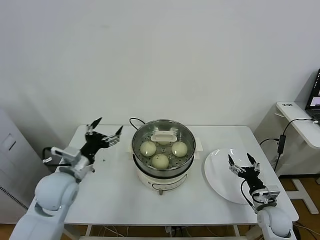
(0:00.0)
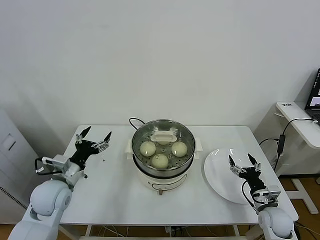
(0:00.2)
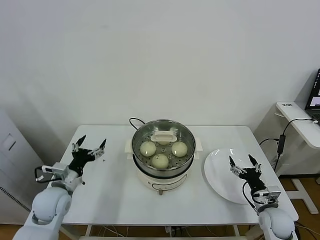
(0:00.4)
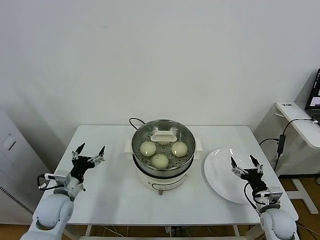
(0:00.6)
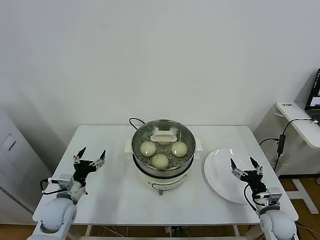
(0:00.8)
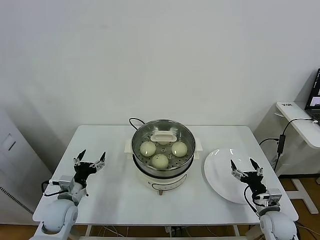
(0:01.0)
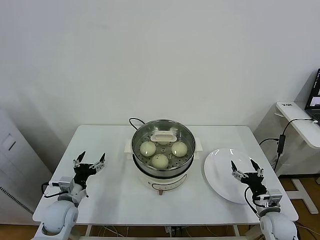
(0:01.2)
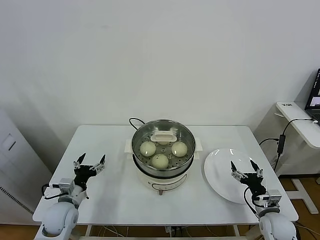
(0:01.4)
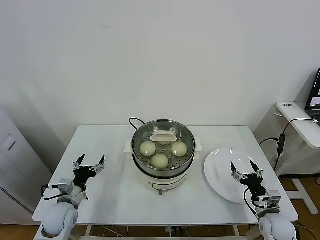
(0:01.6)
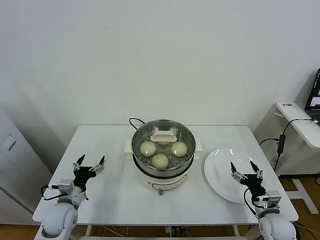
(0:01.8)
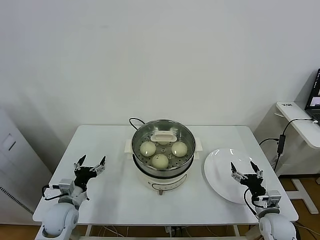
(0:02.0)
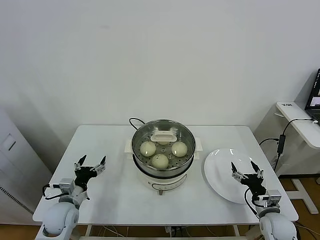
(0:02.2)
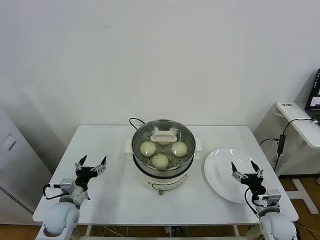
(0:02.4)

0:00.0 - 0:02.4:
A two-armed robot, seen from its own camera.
Task of the whole recording: take steamed baozi put them in steamer.
0:00.0 - 0:01.2: The left gripper shifts roughly 15 cm downward and to the left.
0:01.2 - 0:02.4: Both grippers stay about where they are.

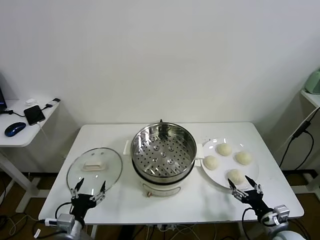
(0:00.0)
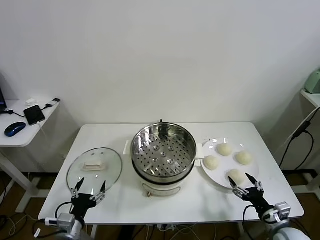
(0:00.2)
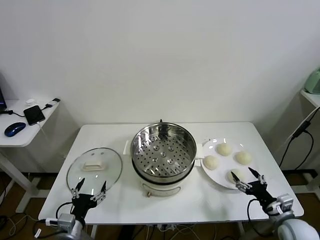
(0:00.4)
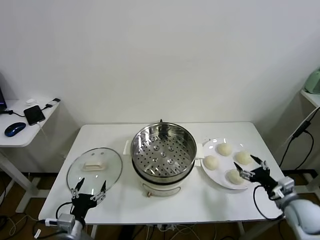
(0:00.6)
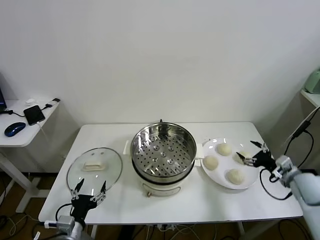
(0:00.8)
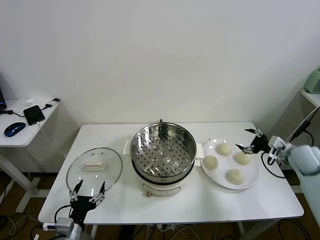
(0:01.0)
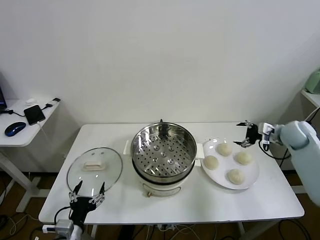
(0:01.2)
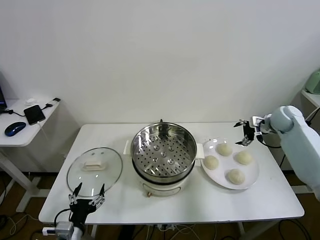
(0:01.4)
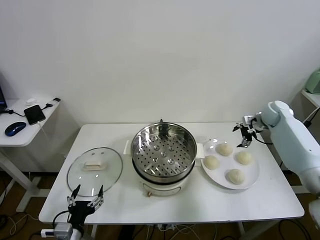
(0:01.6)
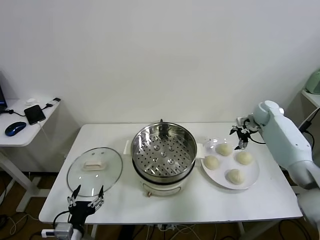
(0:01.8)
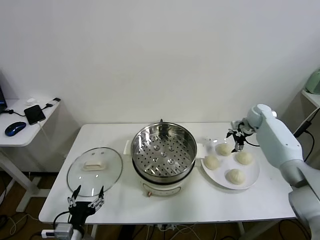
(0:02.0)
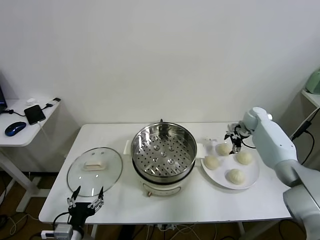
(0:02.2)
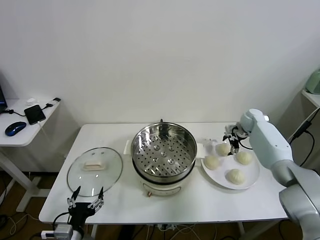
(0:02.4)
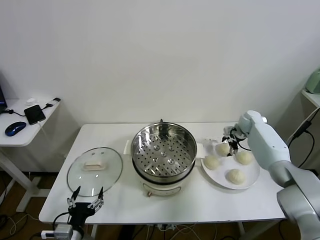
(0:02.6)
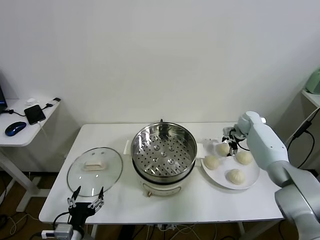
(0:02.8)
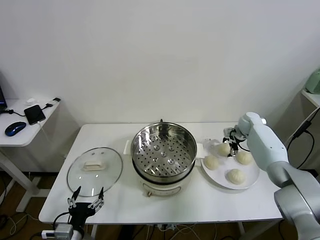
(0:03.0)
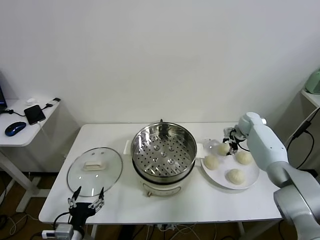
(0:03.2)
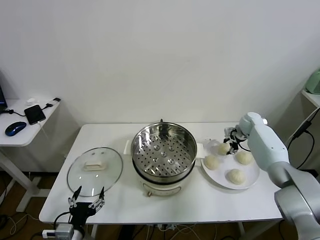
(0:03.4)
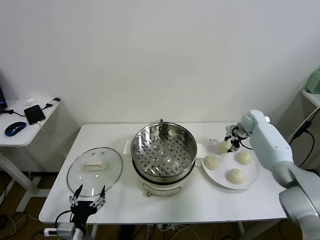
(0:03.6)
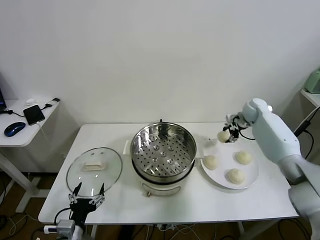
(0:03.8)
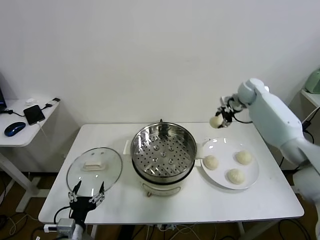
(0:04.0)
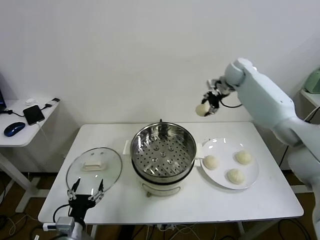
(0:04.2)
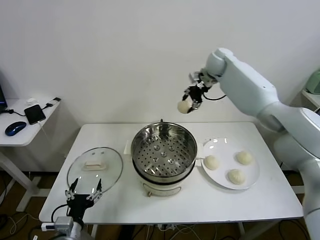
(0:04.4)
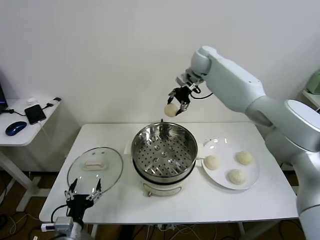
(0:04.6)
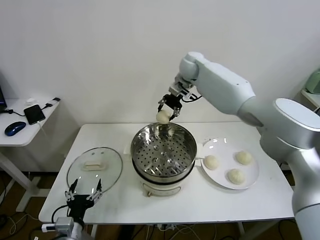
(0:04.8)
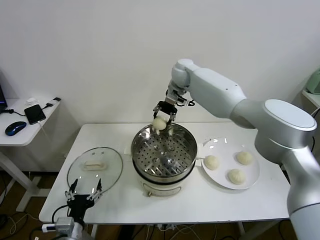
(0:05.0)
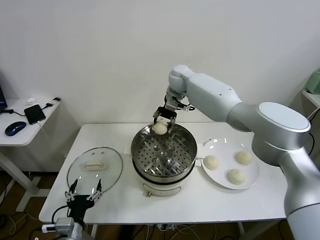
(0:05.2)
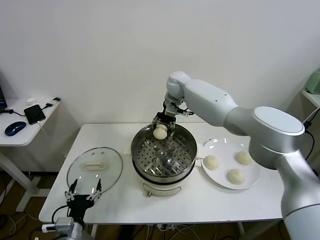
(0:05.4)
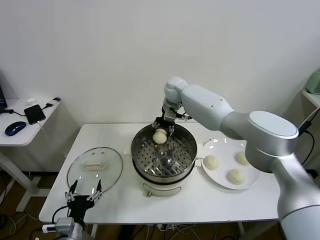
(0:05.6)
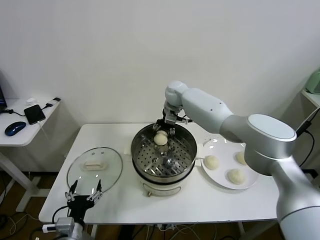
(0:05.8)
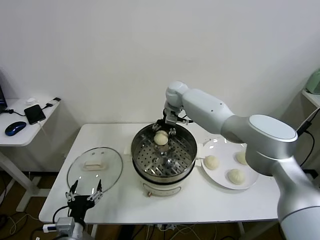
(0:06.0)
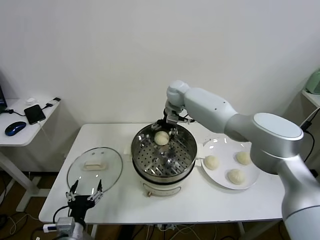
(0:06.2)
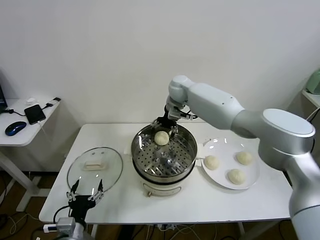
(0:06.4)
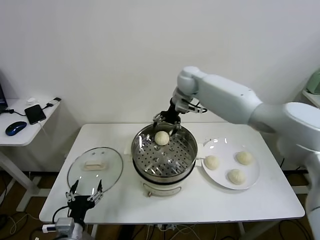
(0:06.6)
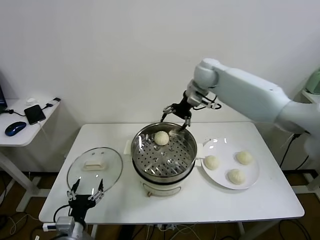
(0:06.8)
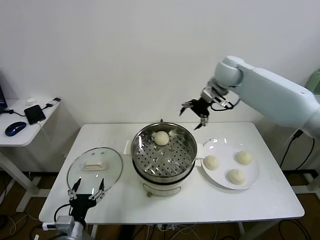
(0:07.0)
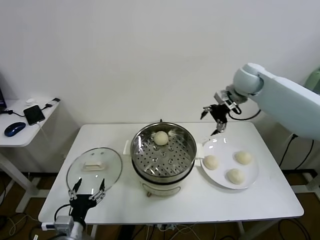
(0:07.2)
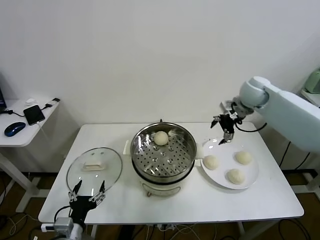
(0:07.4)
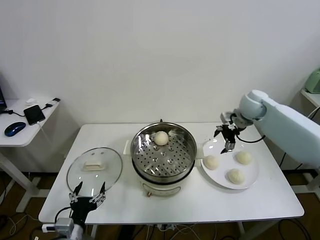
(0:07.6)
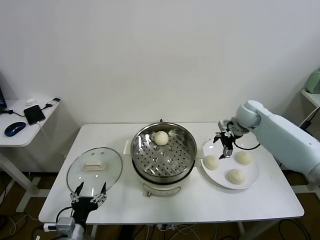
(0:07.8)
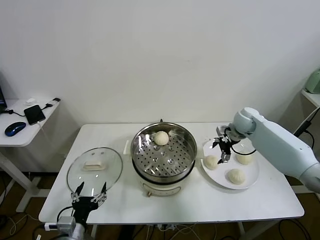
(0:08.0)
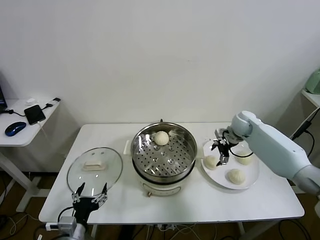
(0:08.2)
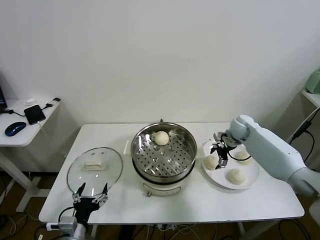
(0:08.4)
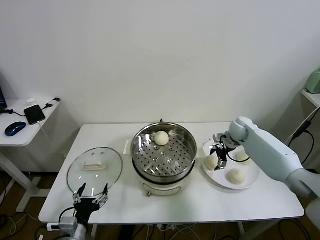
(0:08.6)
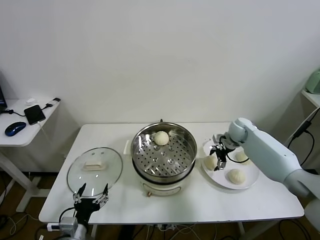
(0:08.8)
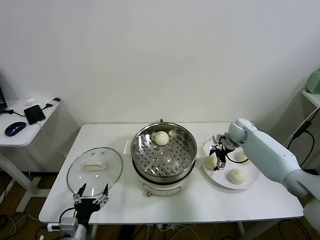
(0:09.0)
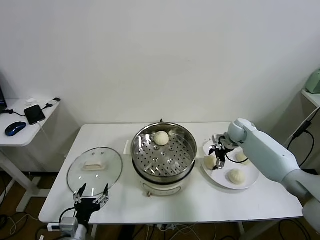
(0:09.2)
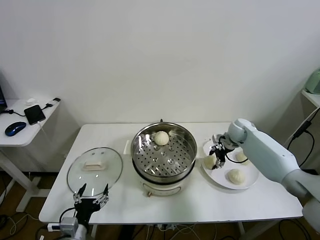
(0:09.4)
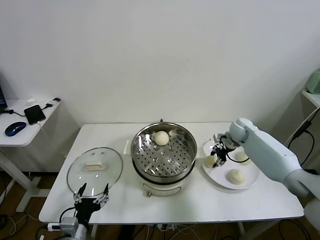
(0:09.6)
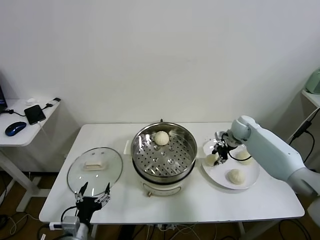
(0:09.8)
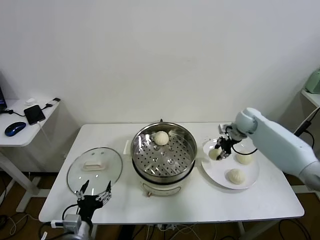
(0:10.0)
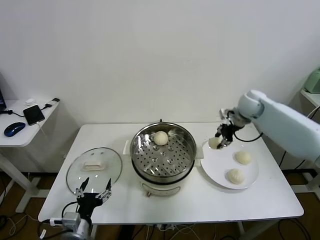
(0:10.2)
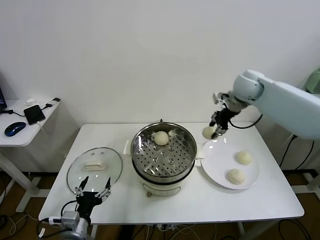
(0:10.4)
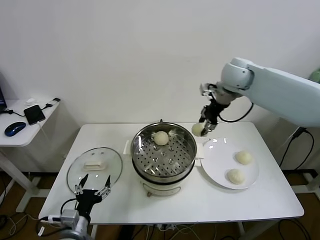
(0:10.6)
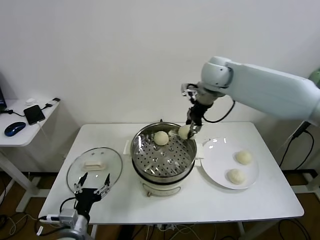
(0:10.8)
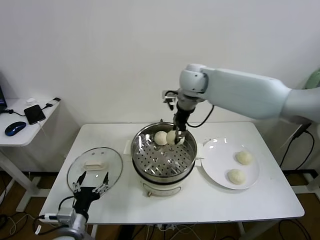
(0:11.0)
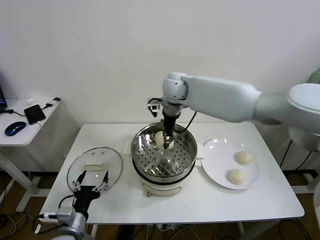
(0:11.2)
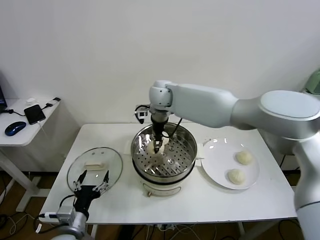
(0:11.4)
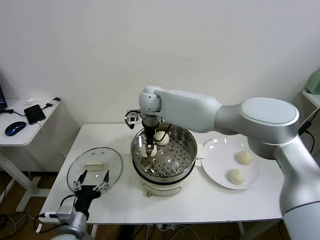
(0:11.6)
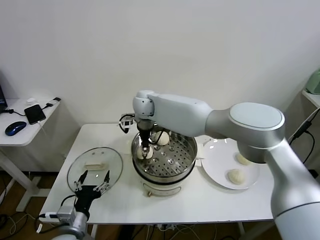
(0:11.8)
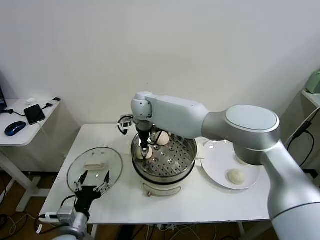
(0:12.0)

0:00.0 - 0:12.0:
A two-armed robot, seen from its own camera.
Task of the whole recording: take steamed baozi put them in steamer.
Step, 0:00.0 - 0:03.0: Grasp the baozi in the plate with right gripper.
Step, 0:03.2 - 0:06.2: Place the baozi on the steamer with right gripper.
Step, 0:06.4 - 0:09.4: Grasp the baozi in the plate with right gripper.
0:01.6 - 0:03.0: The right gripper moves downward, approximately 10 cm.
0:03.0 - 0:04.4: The right gripper shifts about 35 cm upward and to the left, and closes up.
0:04.4 - 0:06.0: The right gripper moves downward and to the left, approximately 15 cm, and opens its fingers.
0:06.0 - 0:07.6: The right gripper moves to the right, roughly 25 cm.
0:07.6 - 0:09.0: The right gripper goes approximately 15 cm downward.
0:09.0 - 0:10.4: The right gripper heads upward, covering some 25 cm, and closes up.
0:10.4 - 0:12.0: The right gripper travels to the left by approximately 30 cm.

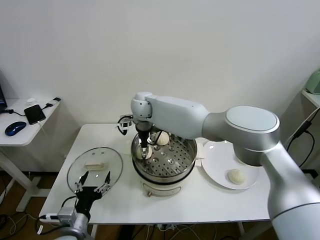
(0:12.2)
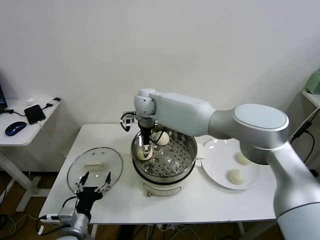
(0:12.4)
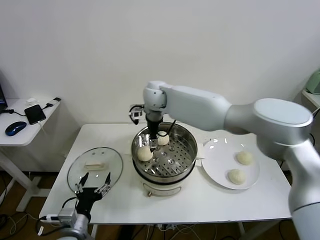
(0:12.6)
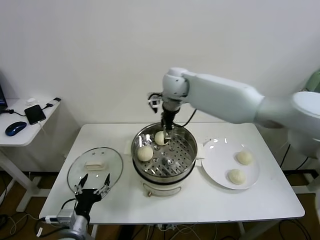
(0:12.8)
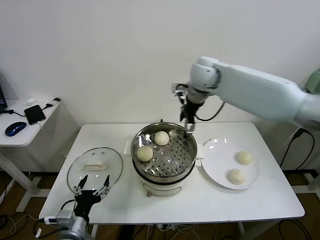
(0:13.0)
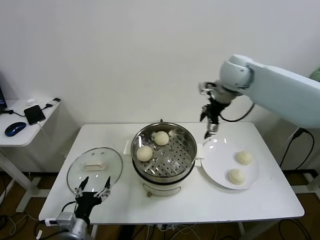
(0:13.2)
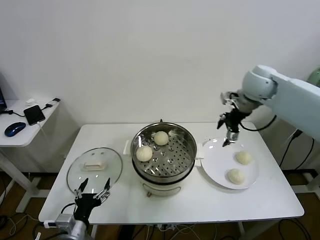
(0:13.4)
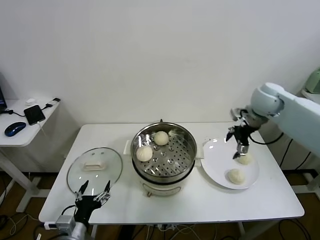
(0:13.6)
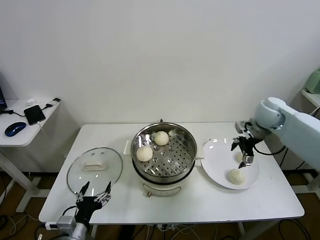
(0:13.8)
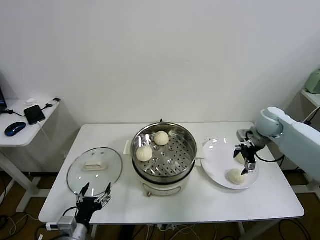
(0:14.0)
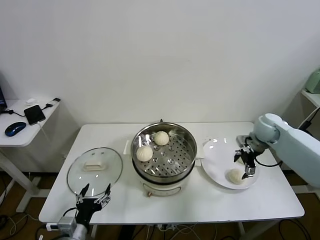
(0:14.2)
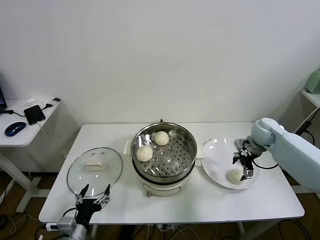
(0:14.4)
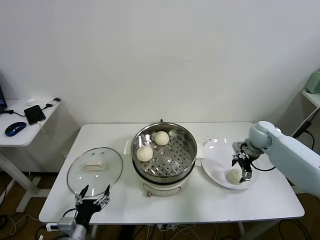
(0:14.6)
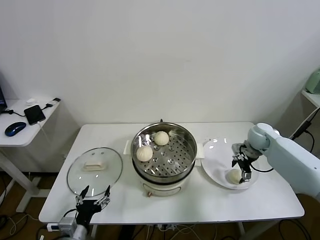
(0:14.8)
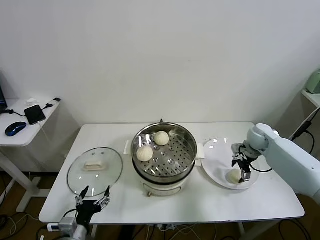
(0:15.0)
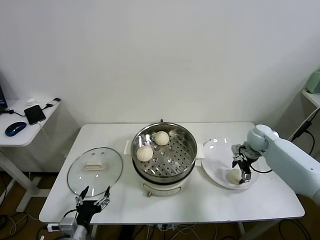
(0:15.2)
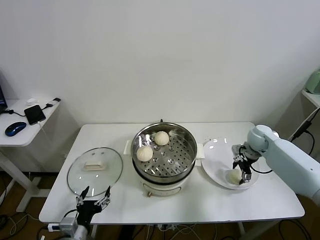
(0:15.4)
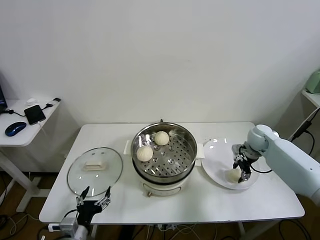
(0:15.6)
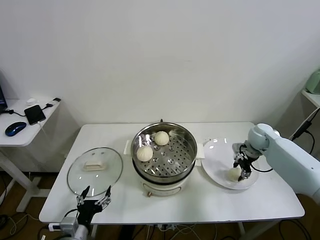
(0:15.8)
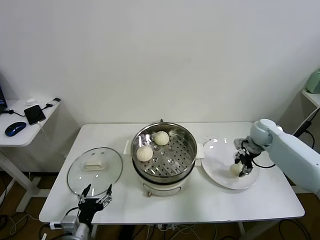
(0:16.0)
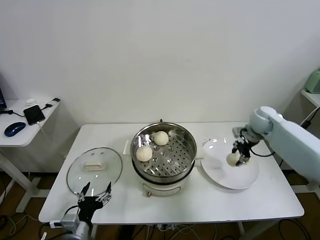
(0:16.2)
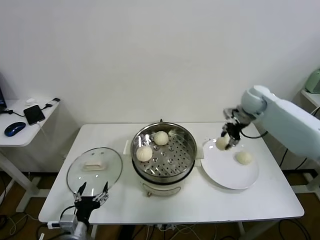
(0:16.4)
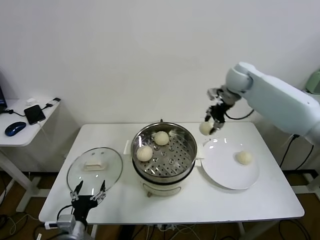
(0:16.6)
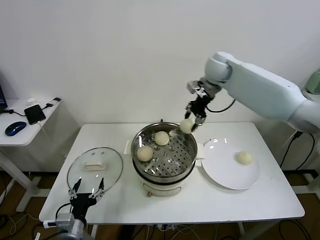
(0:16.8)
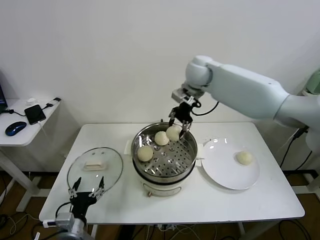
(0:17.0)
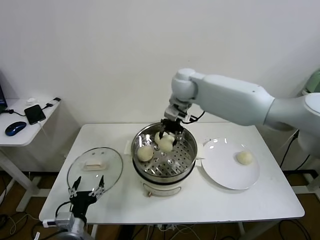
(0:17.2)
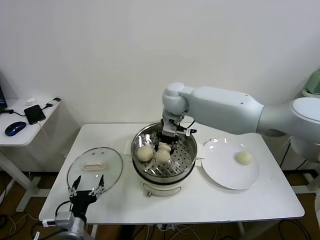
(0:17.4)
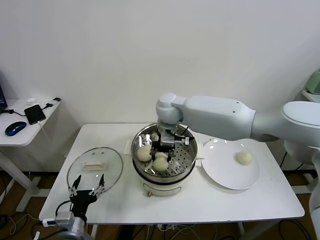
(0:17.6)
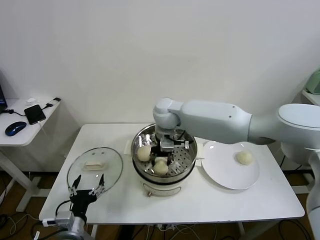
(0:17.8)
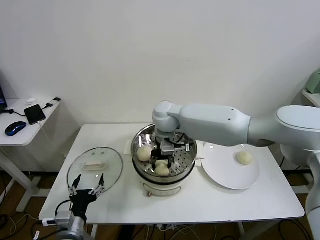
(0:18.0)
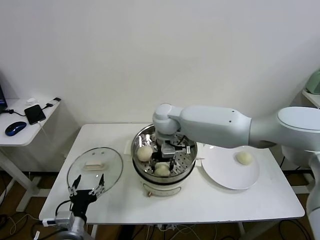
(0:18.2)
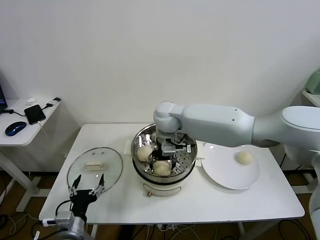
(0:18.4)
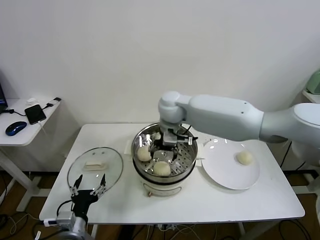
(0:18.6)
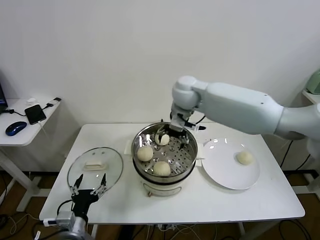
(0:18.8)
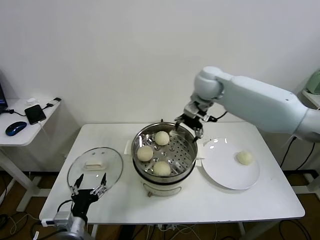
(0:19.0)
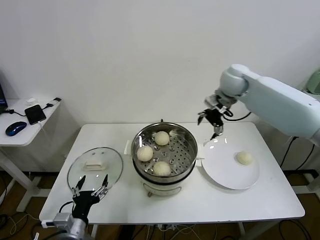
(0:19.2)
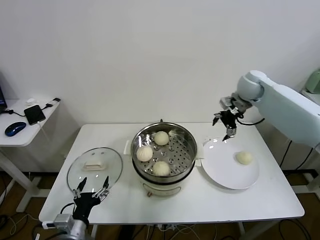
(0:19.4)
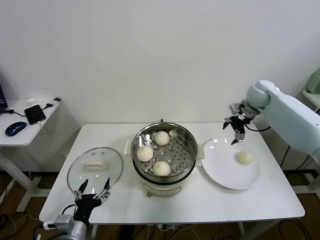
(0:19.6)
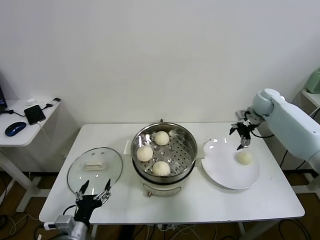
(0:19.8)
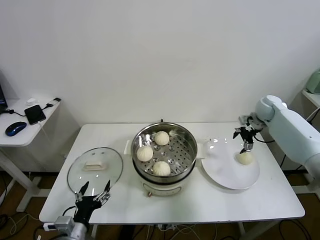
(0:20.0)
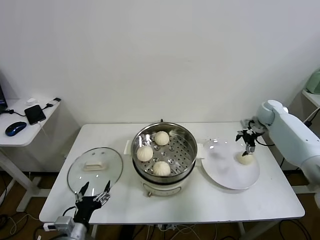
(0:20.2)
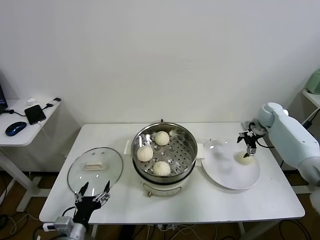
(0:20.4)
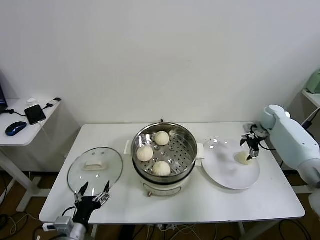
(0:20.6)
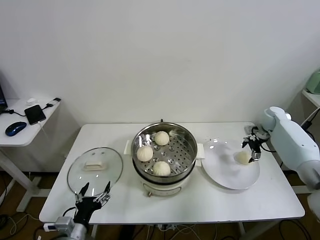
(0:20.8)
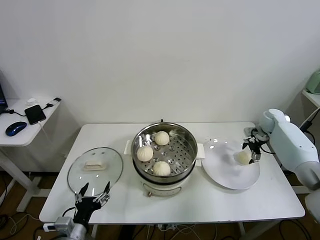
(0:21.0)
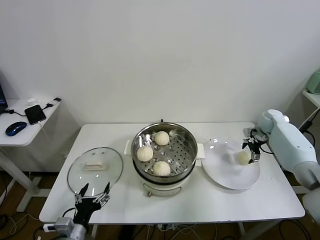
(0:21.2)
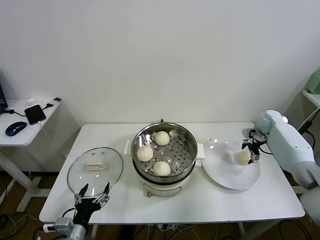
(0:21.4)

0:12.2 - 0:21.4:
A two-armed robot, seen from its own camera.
Task of the whole recording: take steamed baozi put them in steamer.
Step, 0:12.6 - 0:15.6: Grasp the baozi in the plate with right gripper.
Step, 0:15.8 - 0:18.4: Place the baozi on the steamer with right gripper.
0:12.2 - 0:13.8: The right gripper goes about 40 cm to the right, and opens.
0:13.8 - 0:15.2: The right gripper is displaced downward by some 15 cm.
0:15.2 - 0:16.8: The right gripper travels upward and to the left by some 35 cm, and closes.
0:16.8 - 0:18.4: The right gripper heads to the left, downward and backward, covering approximately 20 cm, and opens.
0:18.4 - 0:19.8: The right gripper heads to the right, covering about 40 cm.
0:19.8 - 0:21.4: The right gripper shifts about 10 cm downward and to the right.
